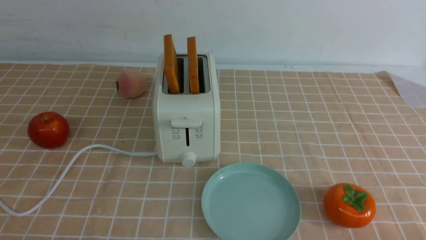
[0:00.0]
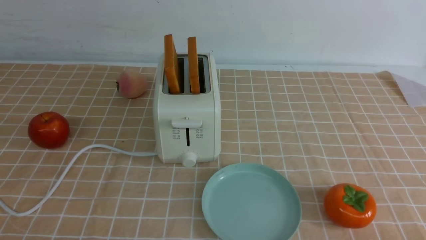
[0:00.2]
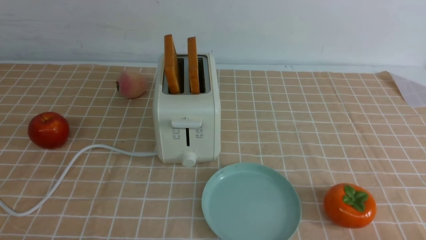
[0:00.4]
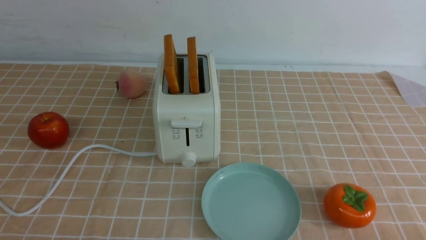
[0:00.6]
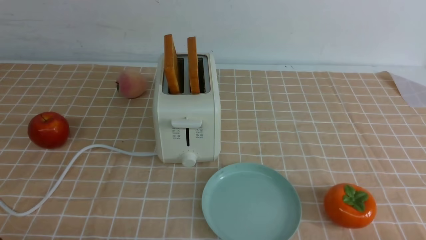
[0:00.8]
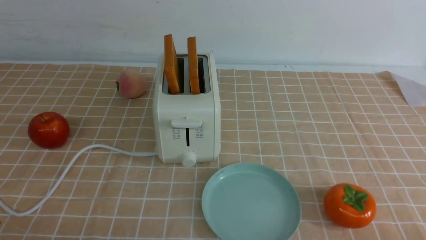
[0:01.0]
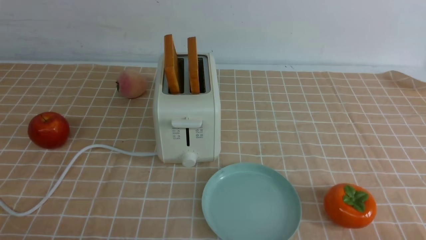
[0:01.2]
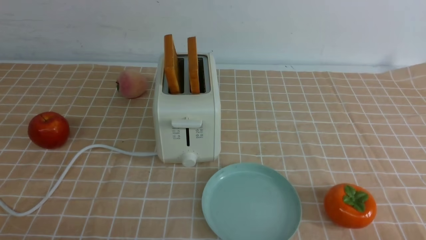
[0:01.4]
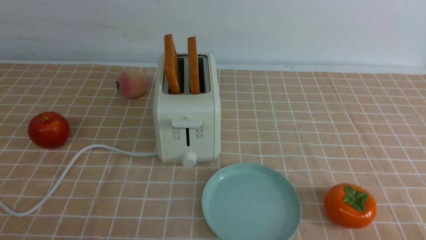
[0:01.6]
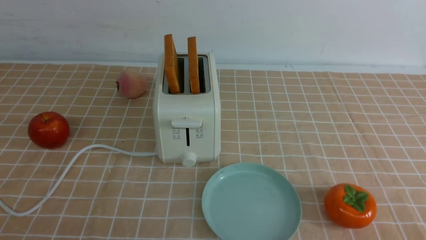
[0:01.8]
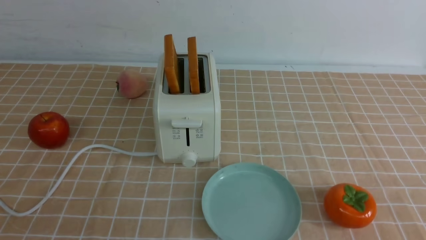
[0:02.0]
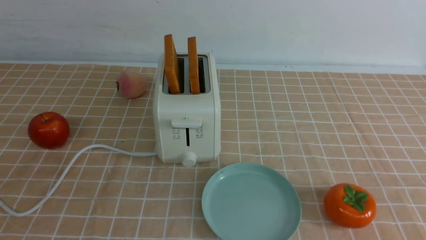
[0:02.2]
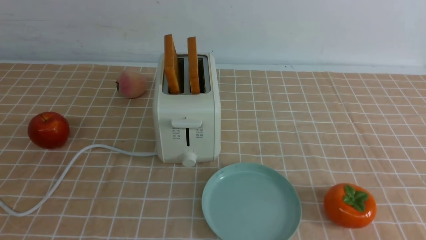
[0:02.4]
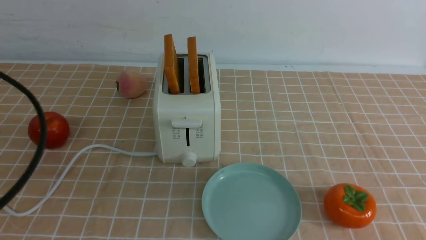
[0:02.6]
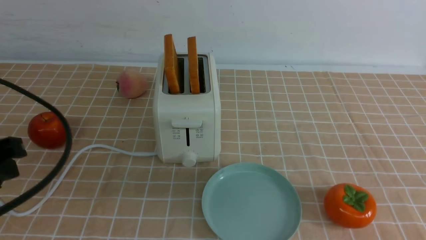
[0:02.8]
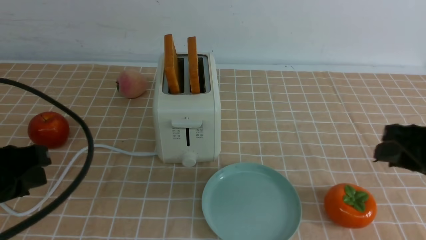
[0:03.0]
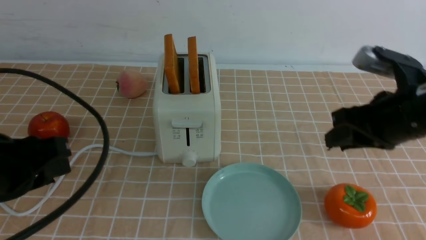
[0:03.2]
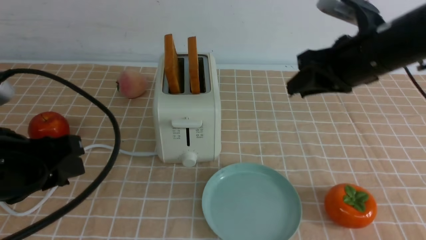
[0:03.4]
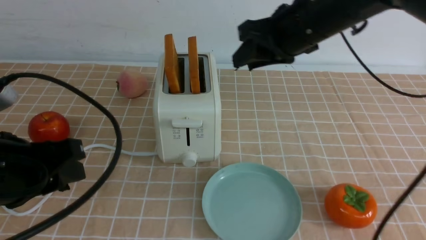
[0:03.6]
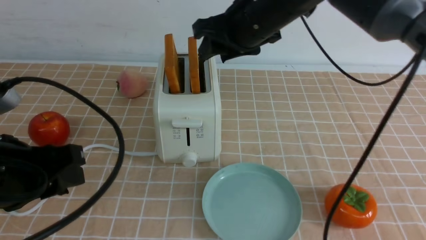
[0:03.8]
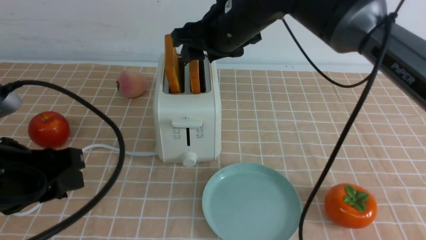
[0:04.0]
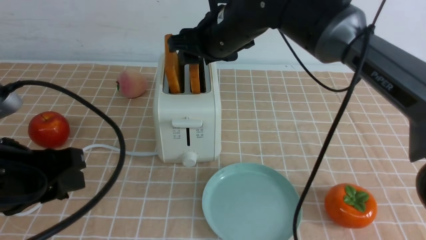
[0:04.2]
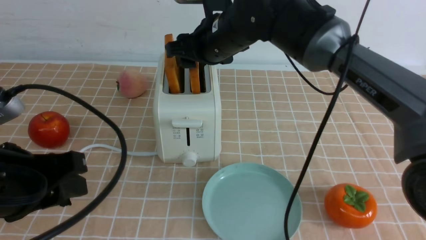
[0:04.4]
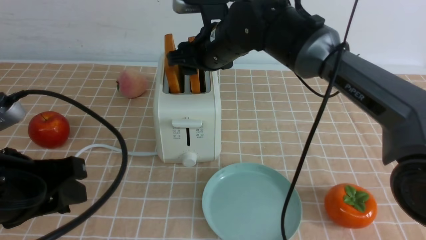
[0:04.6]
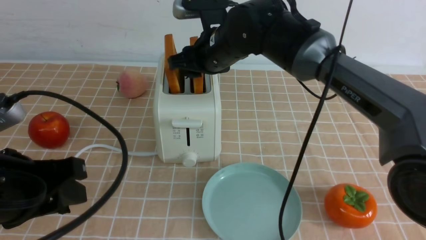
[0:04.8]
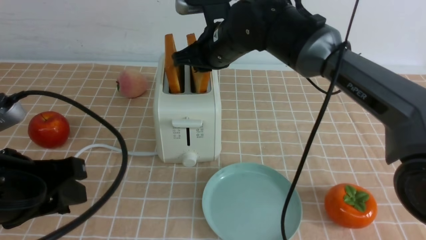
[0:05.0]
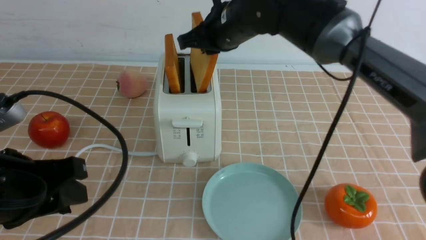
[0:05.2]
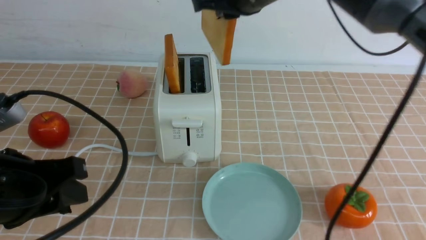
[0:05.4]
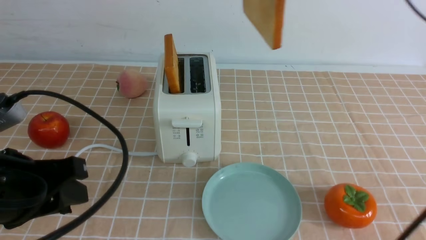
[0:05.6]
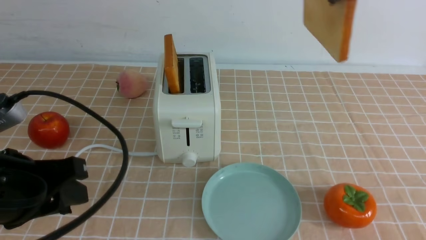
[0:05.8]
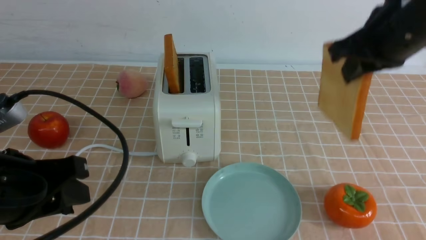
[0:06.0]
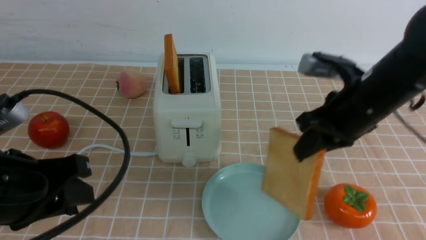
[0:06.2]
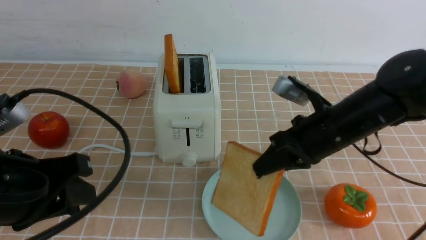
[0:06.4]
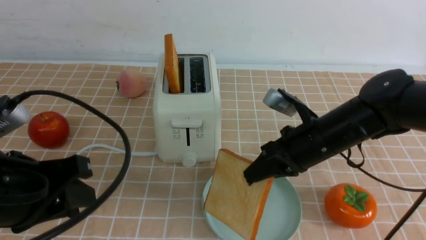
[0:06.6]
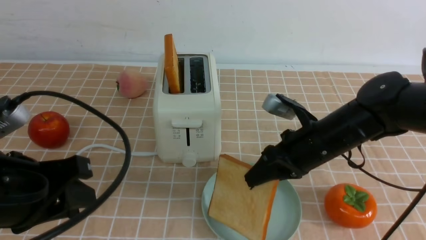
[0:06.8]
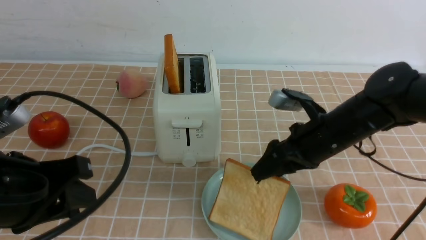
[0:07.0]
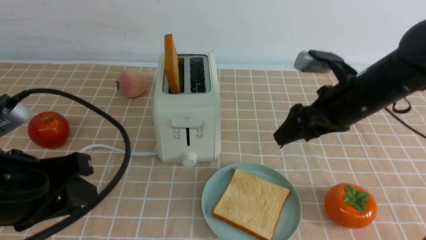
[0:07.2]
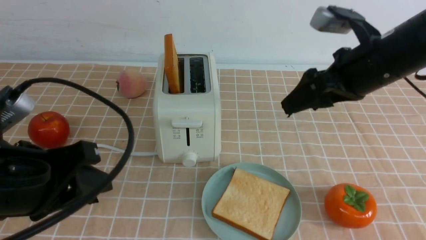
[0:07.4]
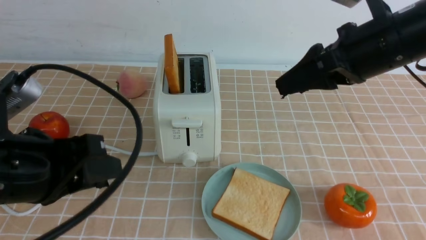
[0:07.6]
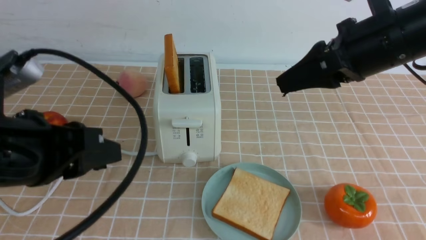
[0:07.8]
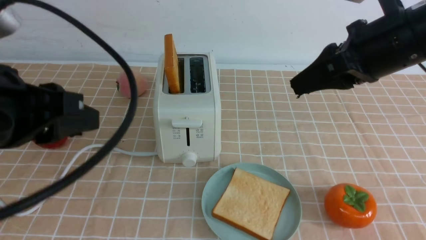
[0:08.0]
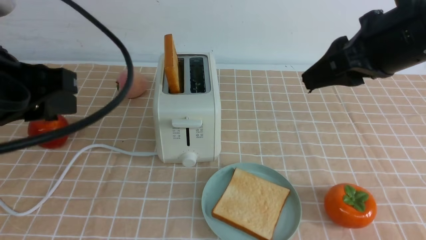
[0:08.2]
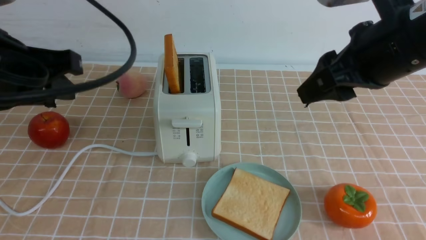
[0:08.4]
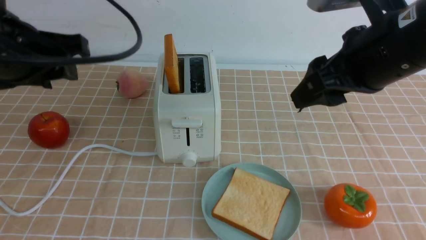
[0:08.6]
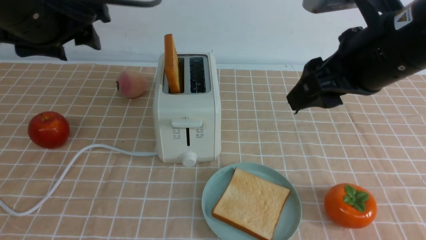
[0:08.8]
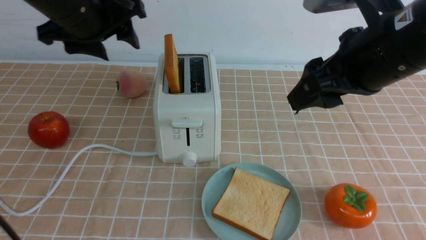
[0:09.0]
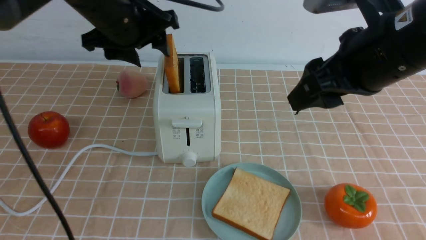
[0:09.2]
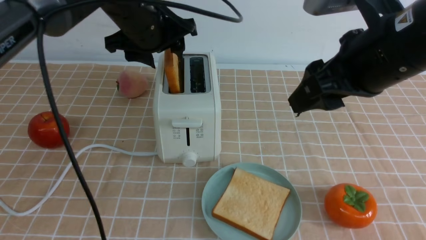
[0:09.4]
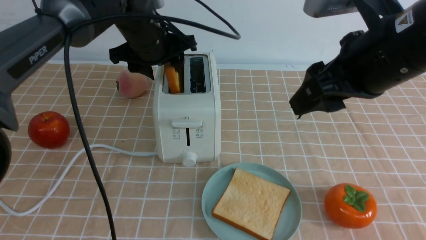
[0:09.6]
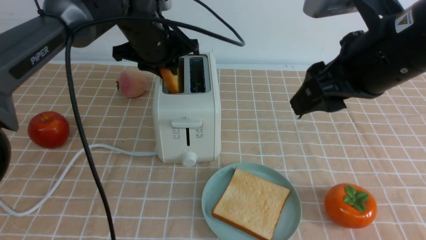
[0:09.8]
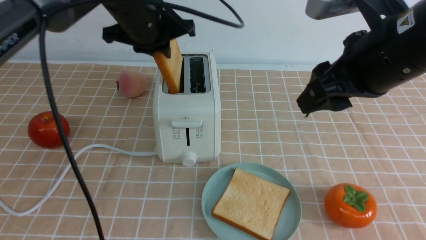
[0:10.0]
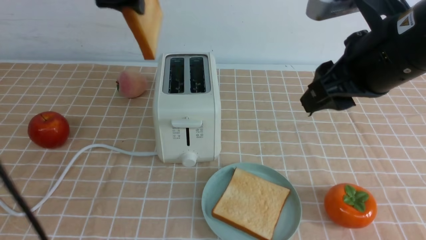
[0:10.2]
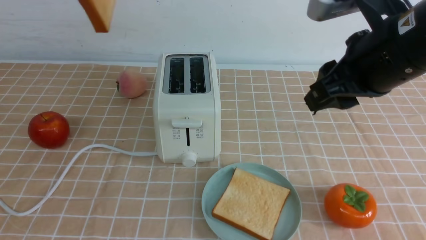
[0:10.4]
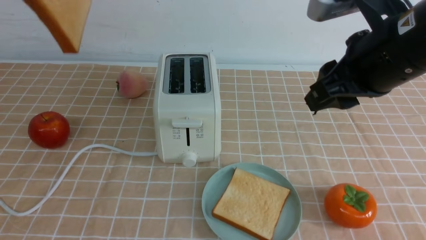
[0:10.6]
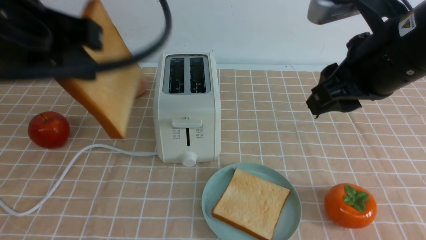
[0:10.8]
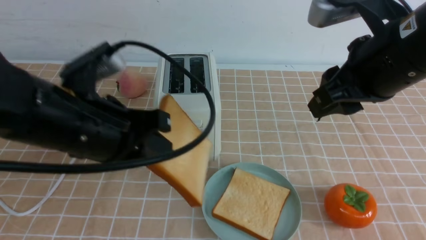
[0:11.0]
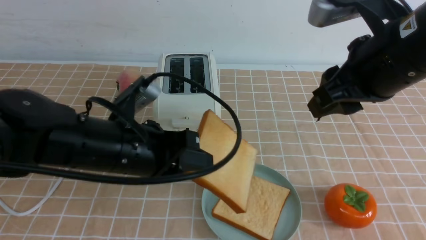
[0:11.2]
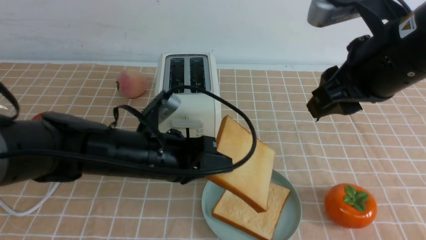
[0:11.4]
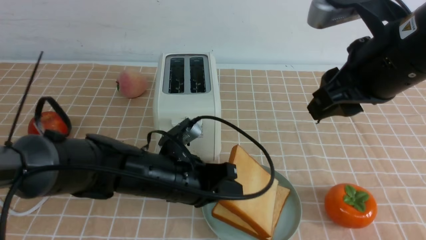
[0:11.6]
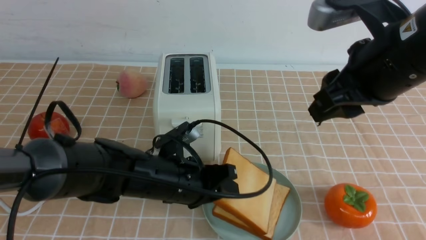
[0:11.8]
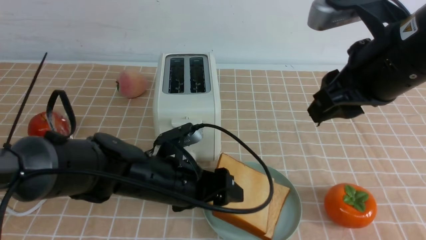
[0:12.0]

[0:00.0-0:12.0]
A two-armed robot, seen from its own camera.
Task of the whole recording: take toasted bread from bread machine on light coffee tablecloth place on plate.
Step, 0:00.0 to 0:05.2: use the right arm to take out a slice of bread.
Step, 0:05.4 to 0:07.2: use the right arm to put a slice of bread into the plate.
Step, 0:07.4 to 0:10.0: use the left arm to take out a slice of bread.
0:01.6 to 0:03.0: Both grippers travel together forward and upward, roughly 20 cm.
0:03.0 to 0:04.4: The right gripper heads to the left and forward, covering approximately 30 cm, and opens up.
0:04.4 to 0:06.0: The right gripper shifts about 20 cm to the right and backward, and closes its fingers.
0:06.0 to 0:07.6: The right gripper travels downward and back again, roughly 15 cm each way, and opens up.
0:07.6 to 0:09.0: The left gripper travels forward by about 20 cm, and opens, while the right gripper is displaced backward by approximately 5 cm.
0:09.0 to 0:10.4: The left gripper goes approximately 15 cm upward and backward, and closes up.
0:10.4 to 0:12.0: The left gripper heads downward, covering roughly 30 cm, and opens up.

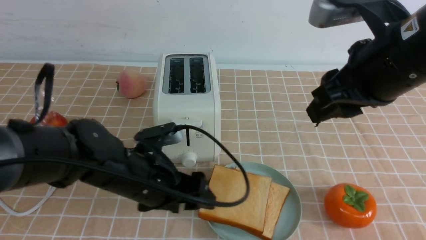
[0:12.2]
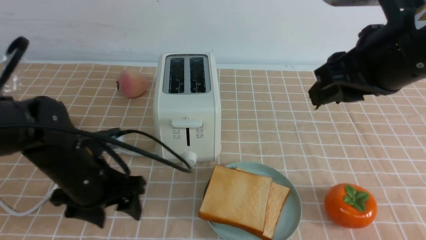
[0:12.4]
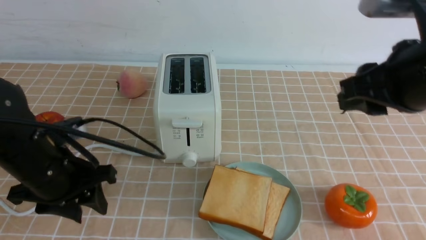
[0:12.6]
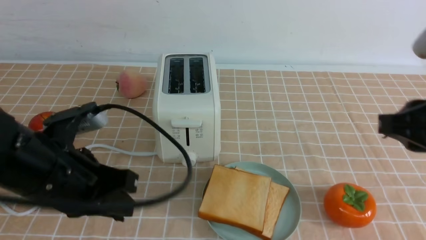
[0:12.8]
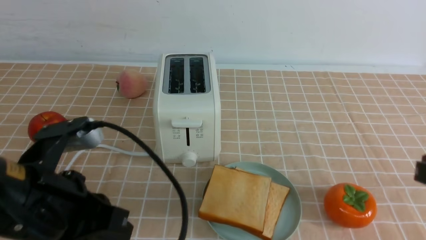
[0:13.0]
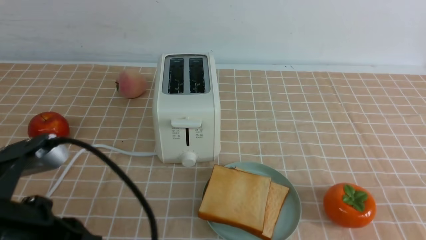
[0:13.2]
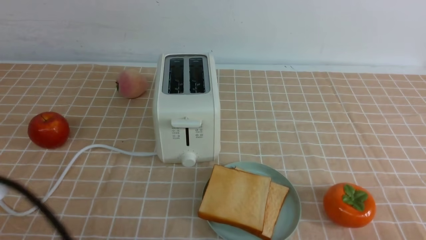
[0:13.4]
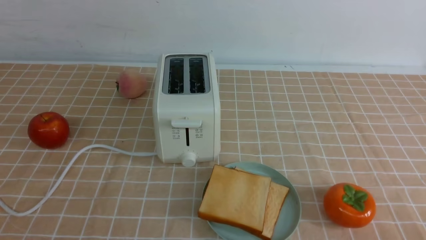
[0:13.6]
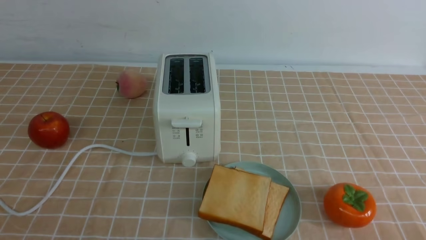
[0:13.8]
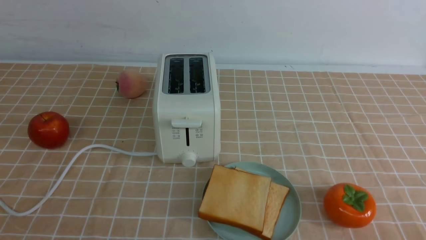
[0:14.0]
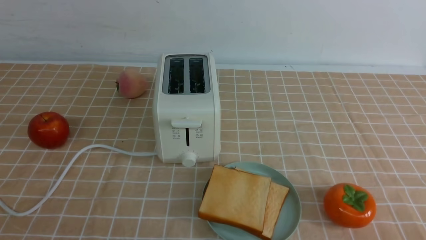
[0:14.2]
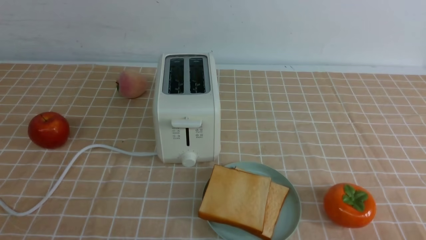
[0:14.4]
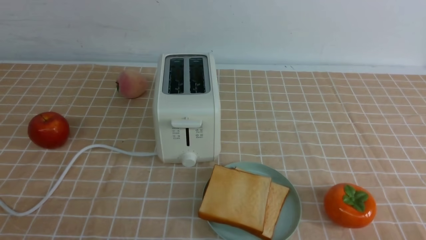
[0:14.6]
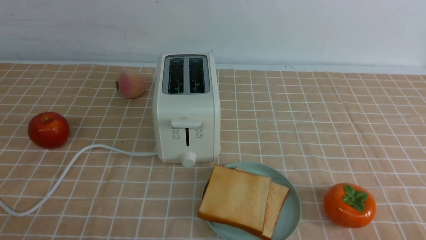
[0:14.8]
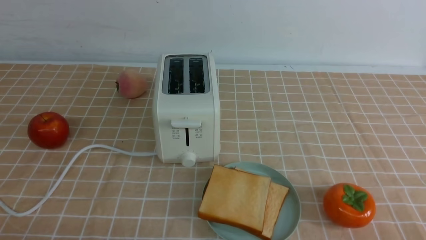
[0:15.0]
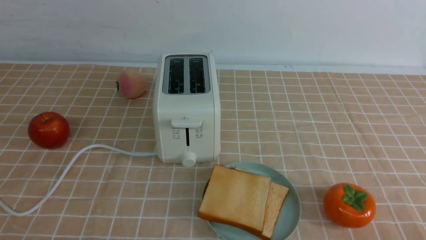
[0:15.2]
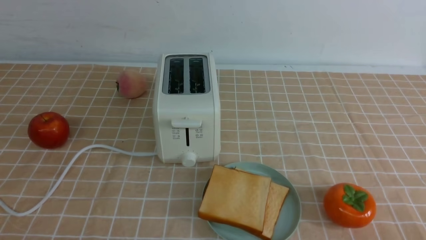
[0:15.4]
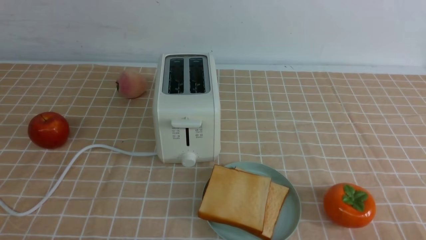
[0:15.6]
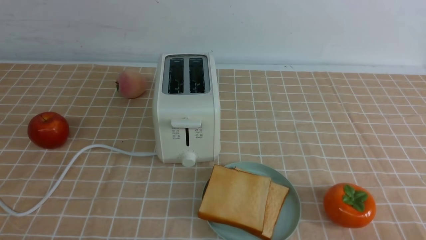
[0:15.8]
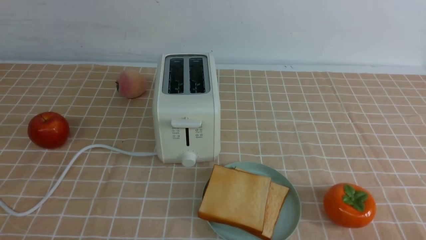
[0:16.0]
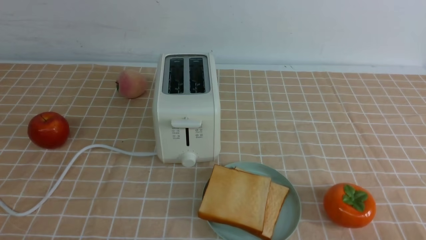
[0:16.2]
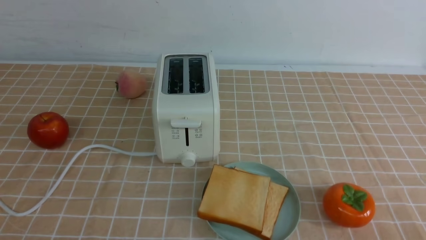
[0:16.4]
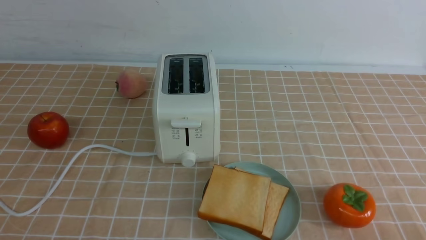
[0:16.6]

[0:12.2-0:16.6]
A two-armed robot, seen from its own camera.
Task of the whole recording: take toasted bread from bread machine on light coffee tablecloth place on plate.
0:12.2 to 0:13.6: The left gripper moves backward, upward and to the left, about 30 cm, and closes its fingers, while the right gripper heads backward, downward and to the right, covering approximately 30 cm, and closes up.
